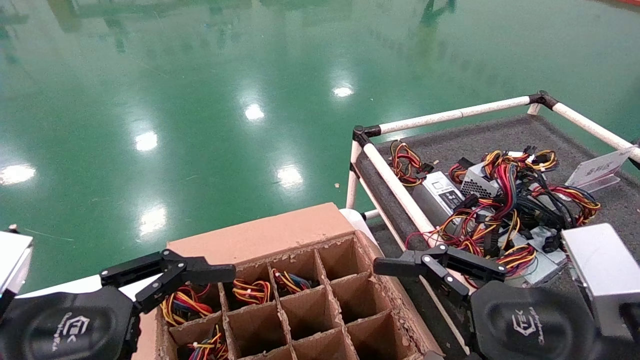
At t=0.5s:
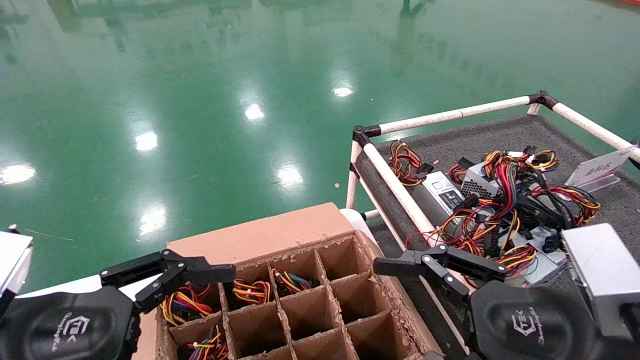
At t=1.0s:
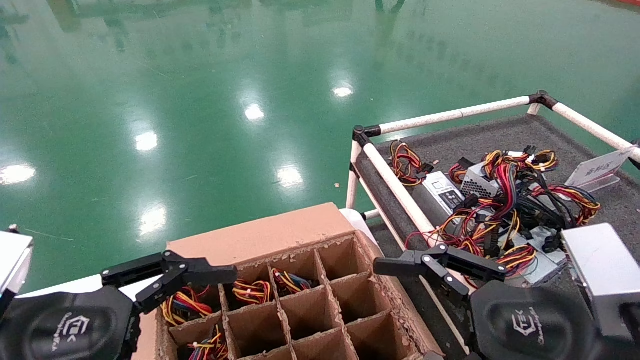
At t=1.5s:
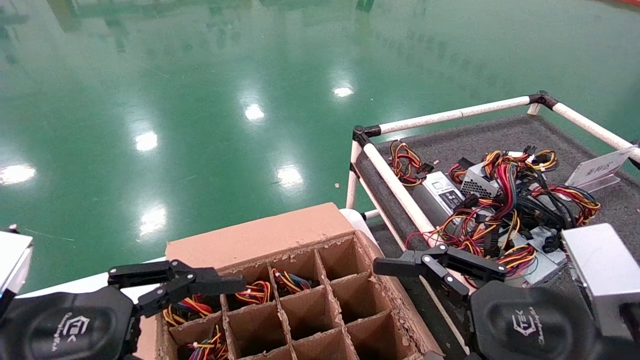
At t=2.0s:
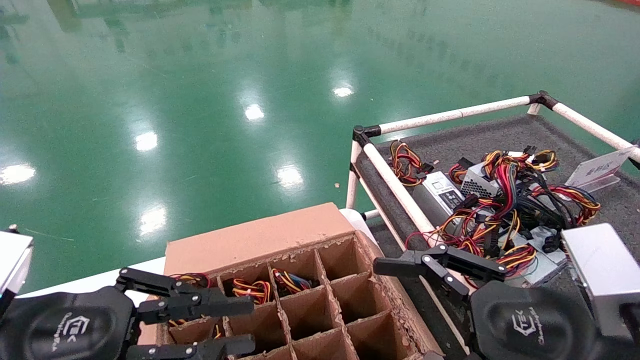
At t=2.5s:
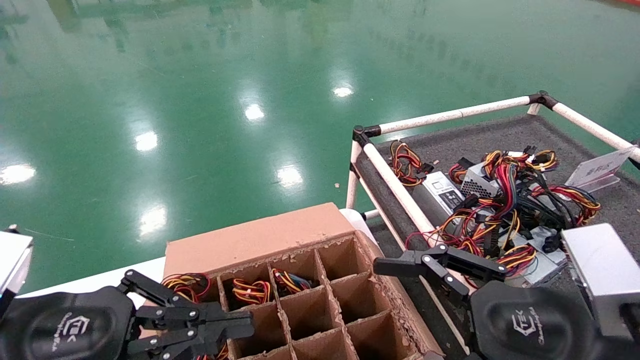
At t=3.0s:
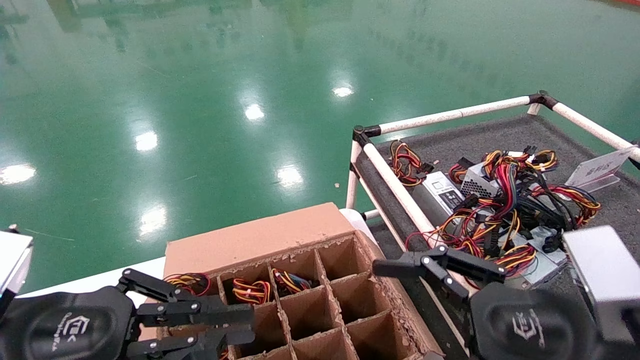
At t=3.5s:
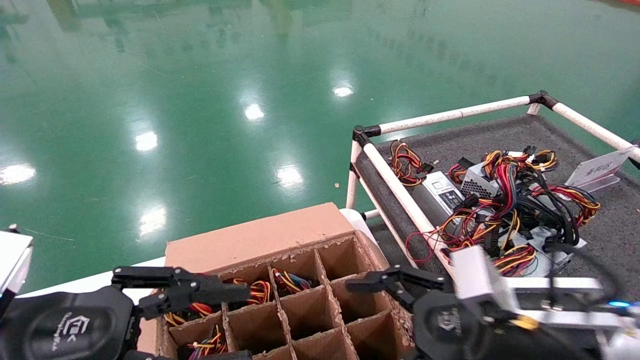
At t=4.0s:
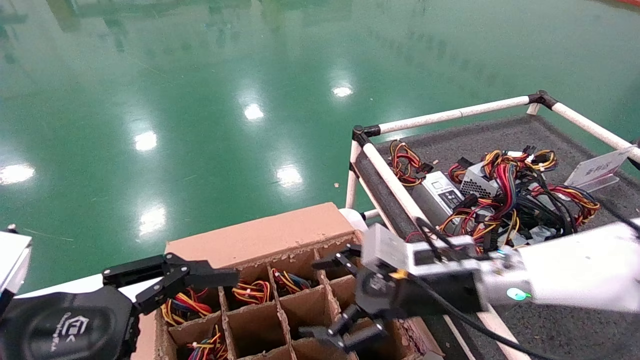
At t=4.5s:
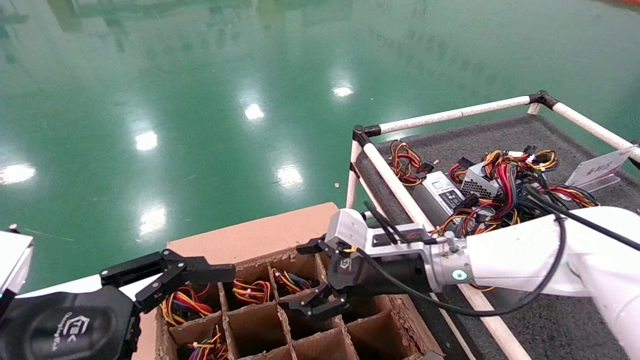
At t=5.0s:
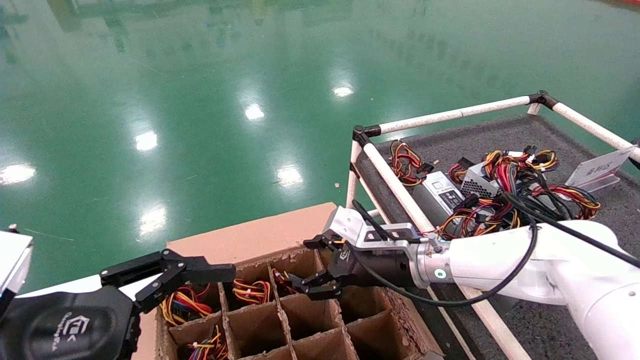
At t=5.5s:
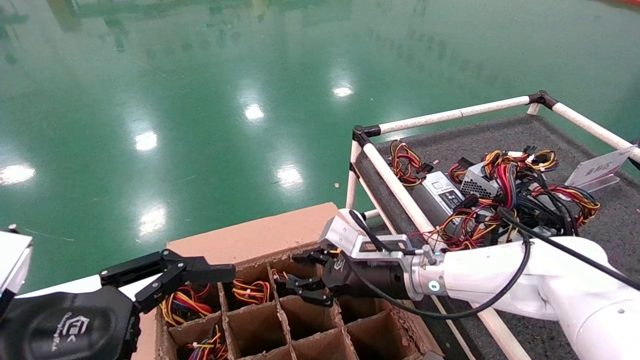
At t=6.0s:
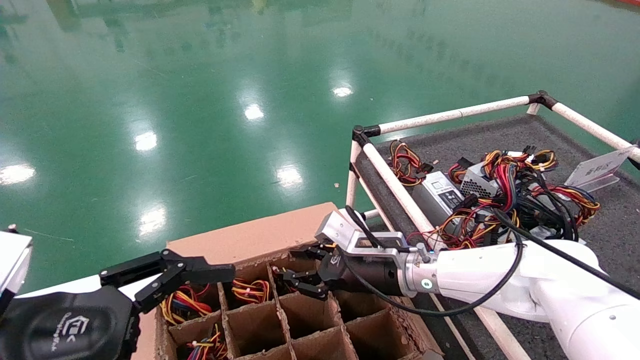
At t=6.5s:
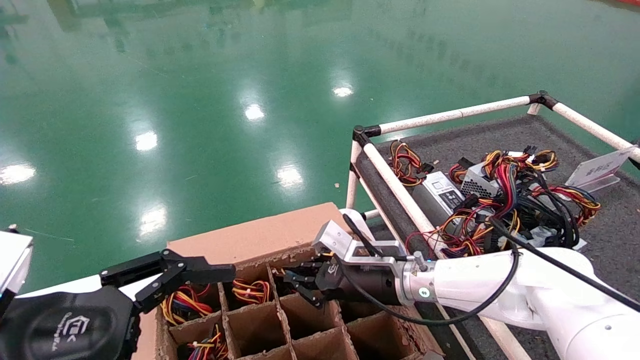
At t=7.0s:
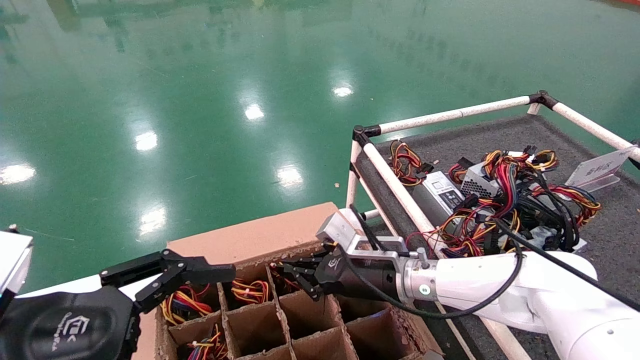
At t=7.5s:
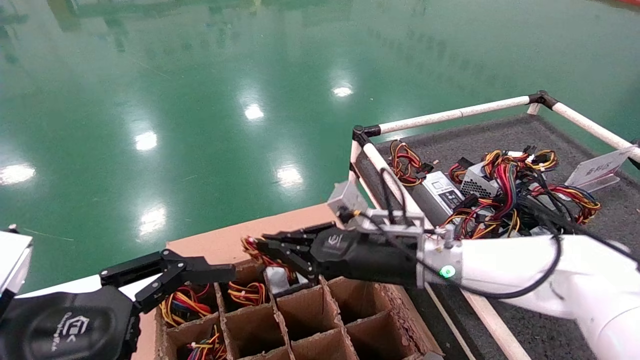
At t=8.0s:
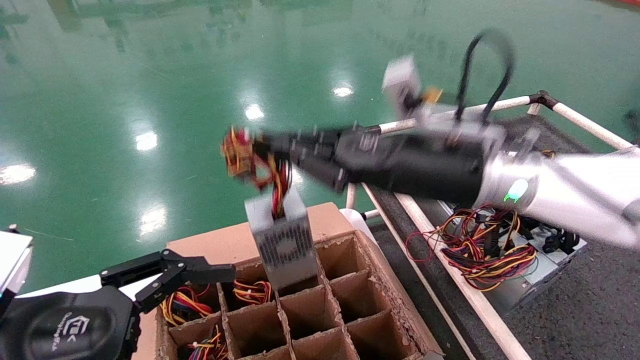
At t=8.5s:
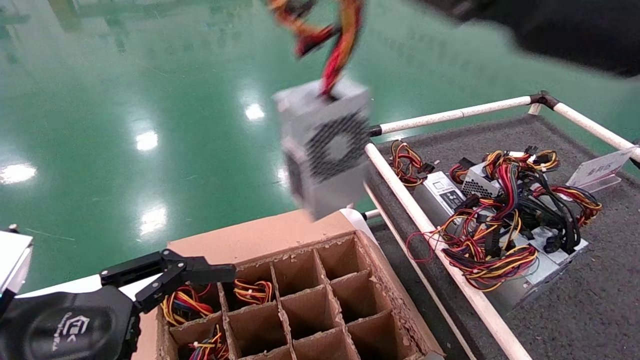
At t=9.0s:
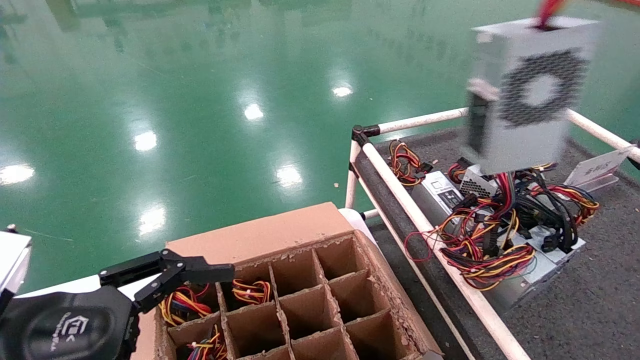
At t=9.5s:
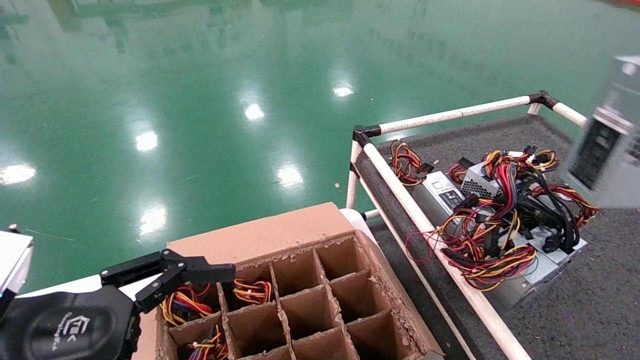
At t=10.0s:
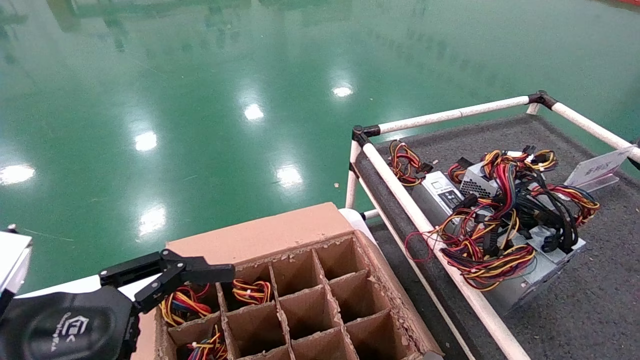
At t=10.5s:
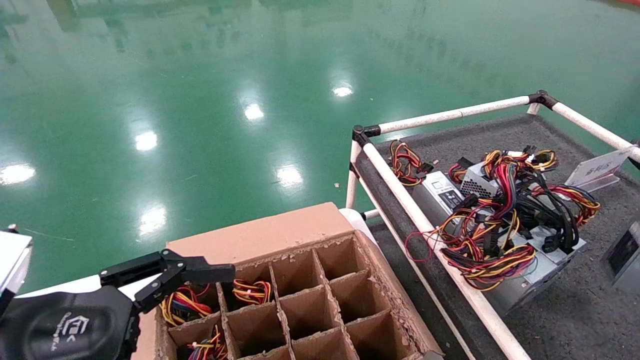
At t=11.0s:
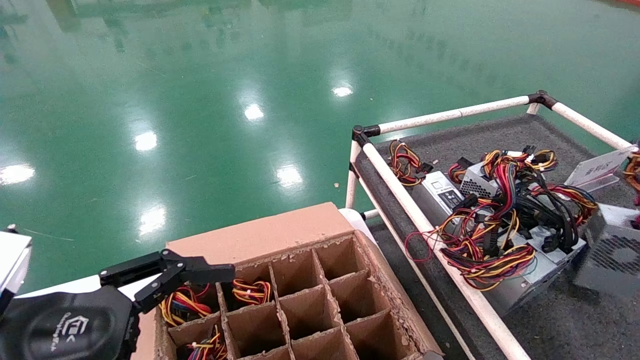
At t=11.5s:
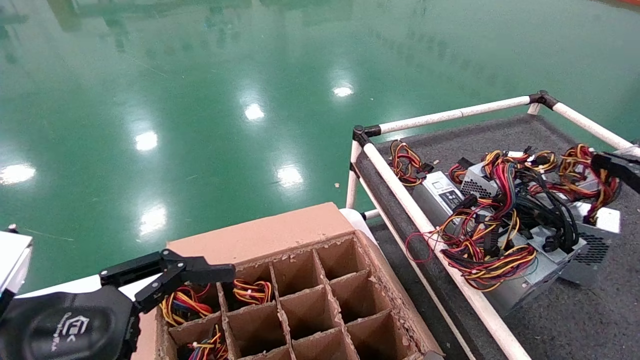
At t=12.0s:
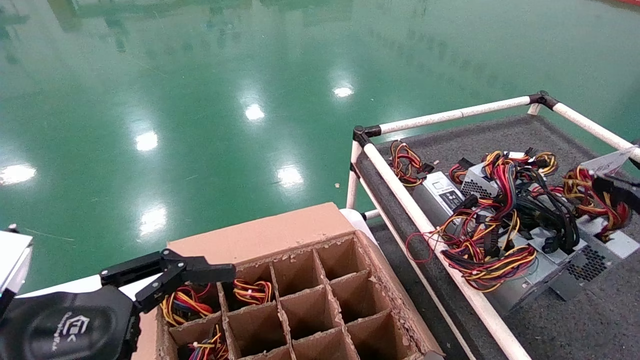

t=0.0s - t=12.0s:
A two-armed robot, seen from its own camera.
Step, t=3.5s - t=6.5s: Grab and lift the power supply from the large box.
t=0.0s - t=2.0s: The left gripper closes.
t=2.0s - t=4.0s: The left gripper opens up; the right gripper goes roughly 20 cm forward and to the left.
t=4.0s - t=6.0s: The right gripper moves forward and to the left, about 10 cm, and closes up.
t=6.0s - t=8.0s: The right gripper moves upward and backward, about 20 cm, and closes.
t=8.0s - t=10.0s: The right gripper moves to the right and backward, approximately 50 cm.
t=10.0s - t=12.0s: The right gripper moves forward and downward, about 20 cm.

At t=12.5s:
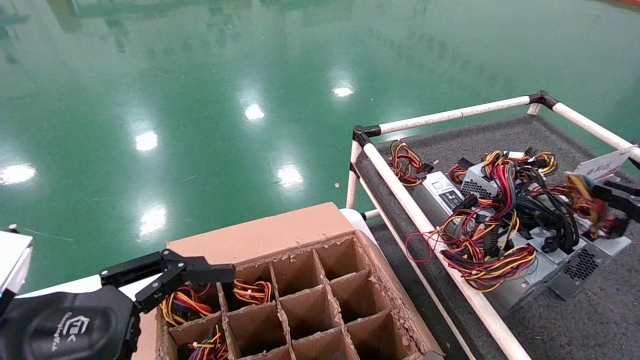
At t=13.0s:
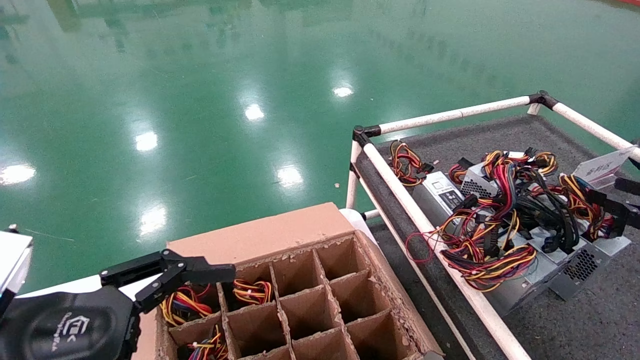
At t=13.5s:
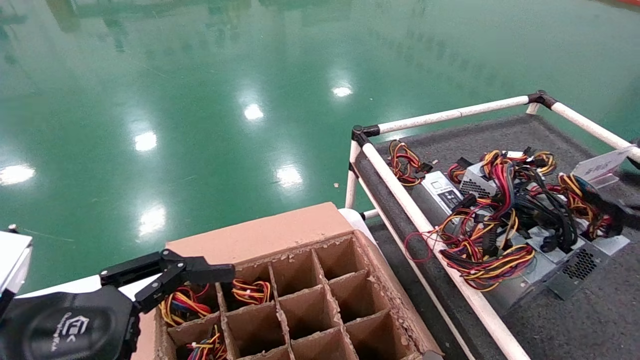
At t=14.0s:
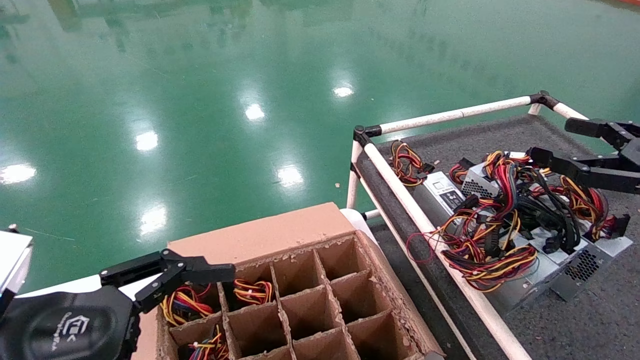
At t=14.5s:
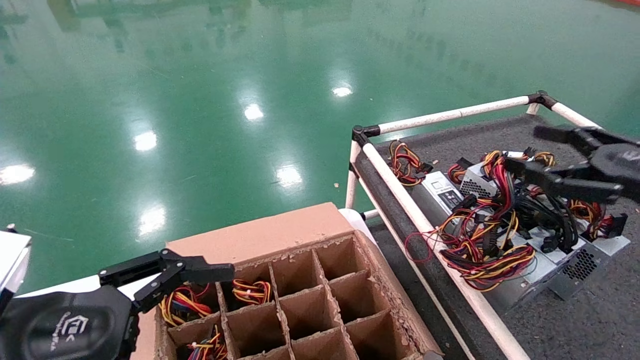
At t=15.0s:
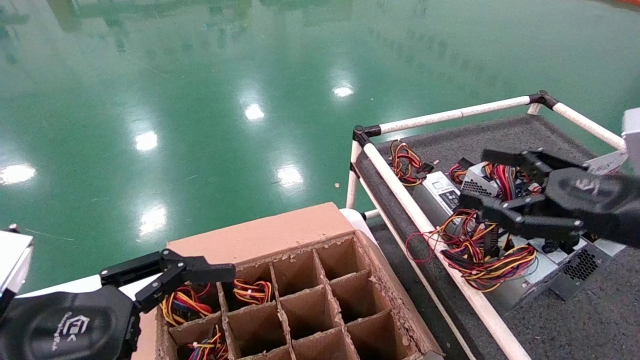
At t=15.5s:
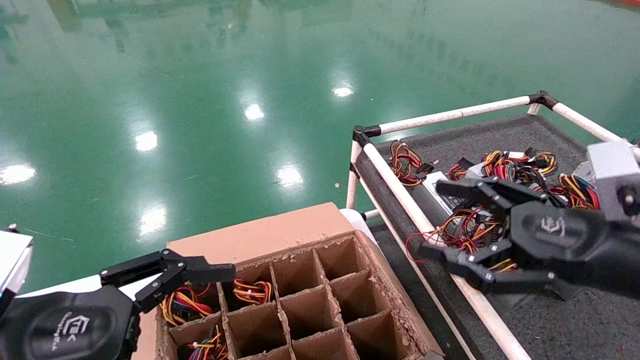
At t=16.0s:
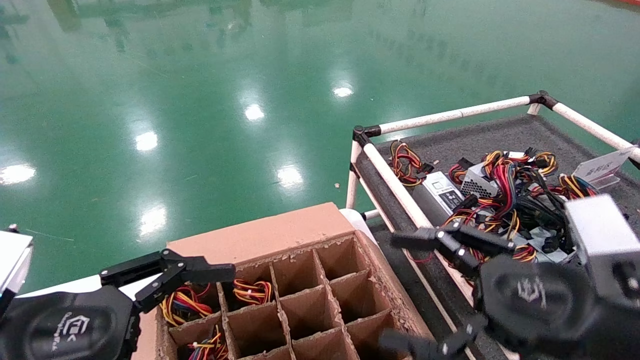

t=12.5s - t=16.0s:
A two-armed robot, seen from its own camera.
t=12.5s - t=14.5s: The right gripper shifts approximately 10 cm to the left and upward, and opens up.
t=14.5s - t=16.0s: The right gripper moves to the left, backward and downward, about 20 cm.
